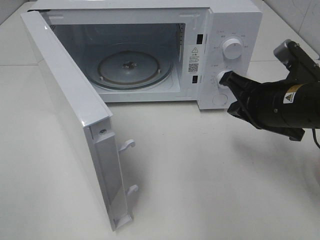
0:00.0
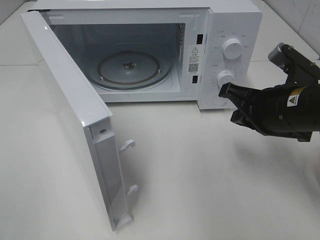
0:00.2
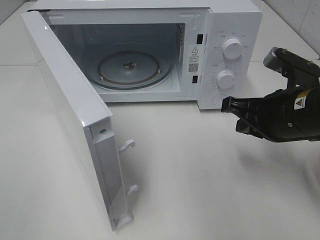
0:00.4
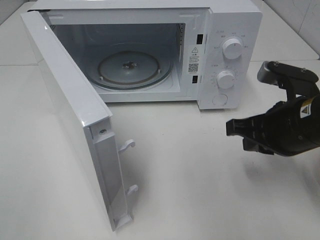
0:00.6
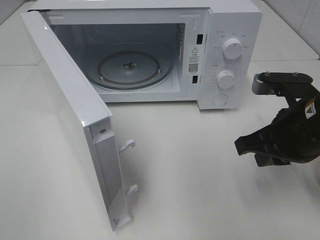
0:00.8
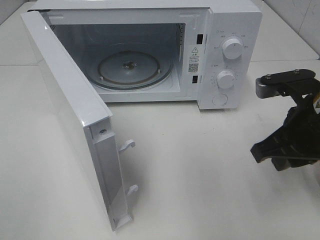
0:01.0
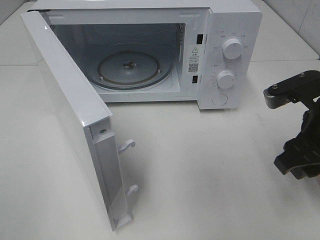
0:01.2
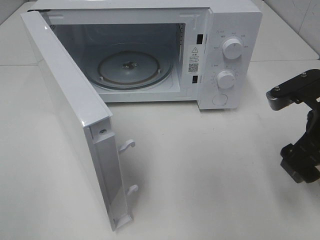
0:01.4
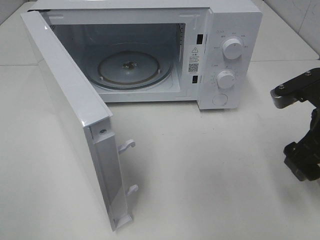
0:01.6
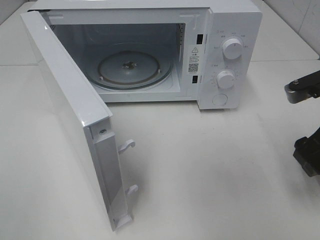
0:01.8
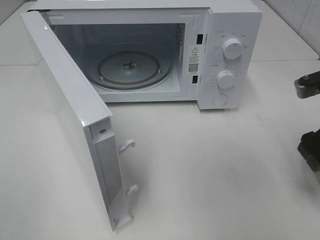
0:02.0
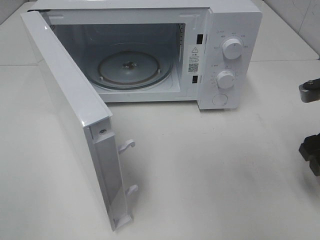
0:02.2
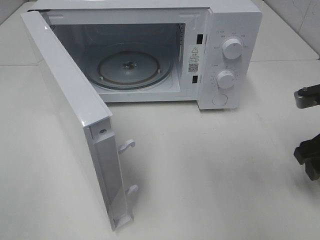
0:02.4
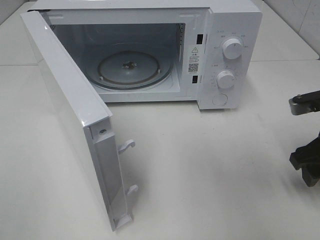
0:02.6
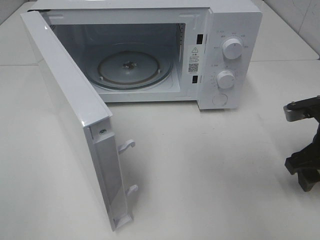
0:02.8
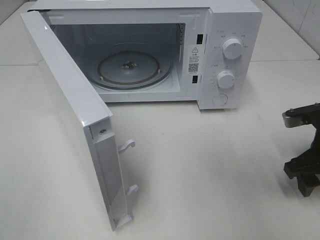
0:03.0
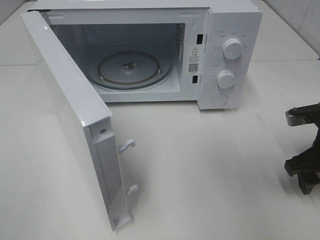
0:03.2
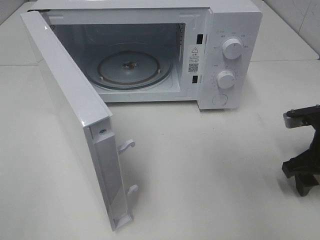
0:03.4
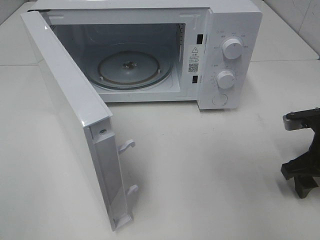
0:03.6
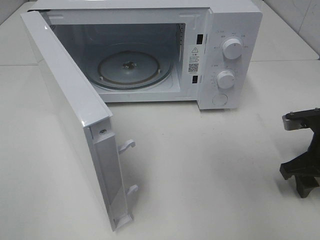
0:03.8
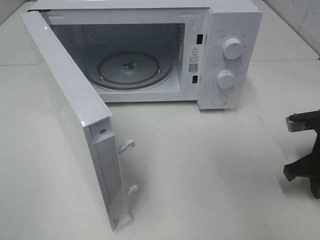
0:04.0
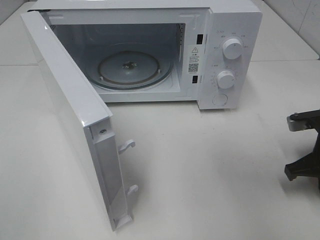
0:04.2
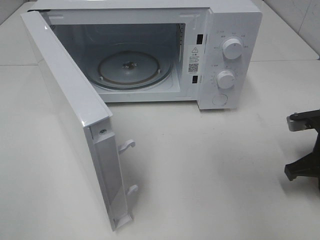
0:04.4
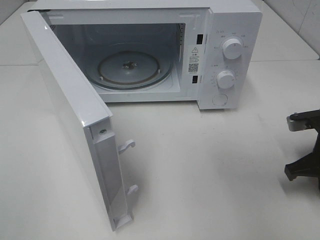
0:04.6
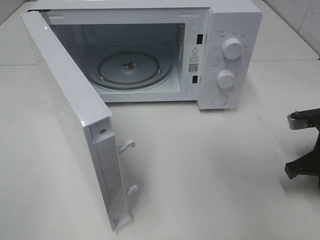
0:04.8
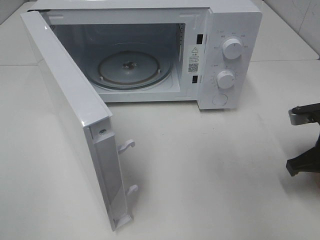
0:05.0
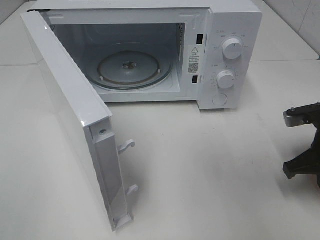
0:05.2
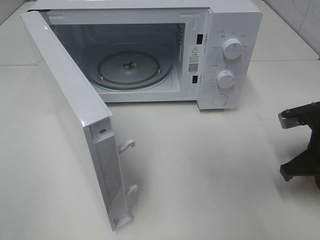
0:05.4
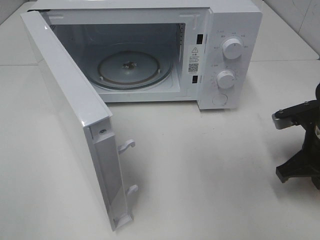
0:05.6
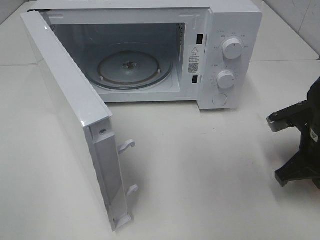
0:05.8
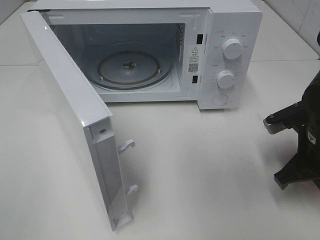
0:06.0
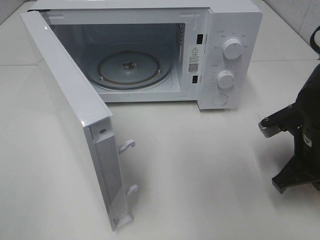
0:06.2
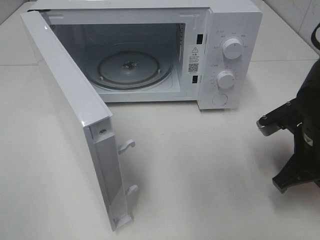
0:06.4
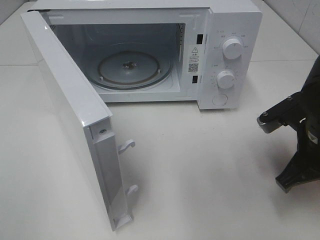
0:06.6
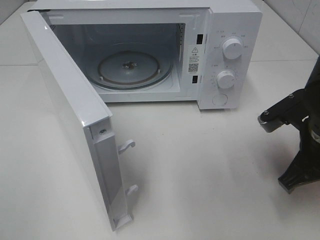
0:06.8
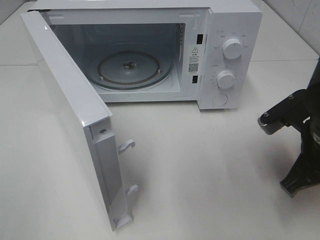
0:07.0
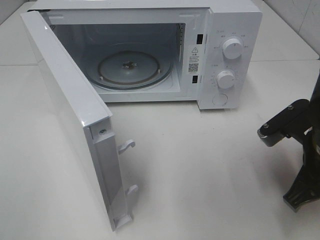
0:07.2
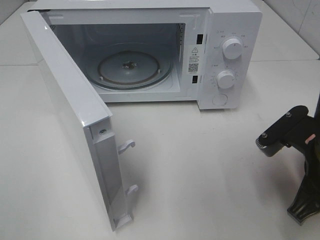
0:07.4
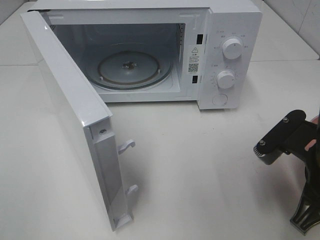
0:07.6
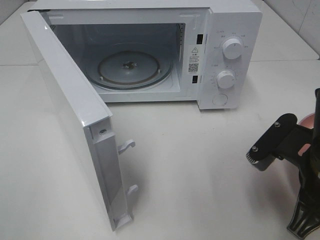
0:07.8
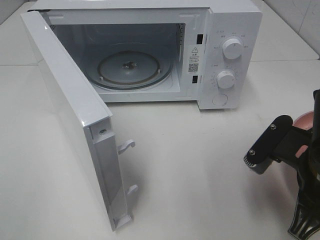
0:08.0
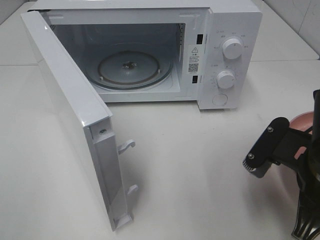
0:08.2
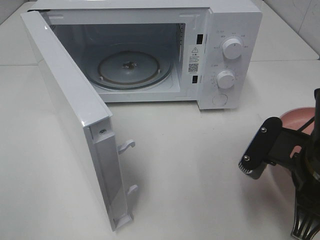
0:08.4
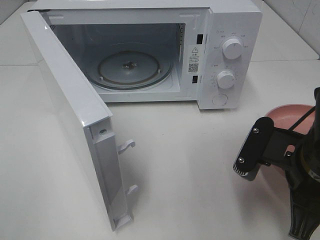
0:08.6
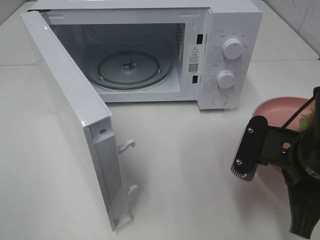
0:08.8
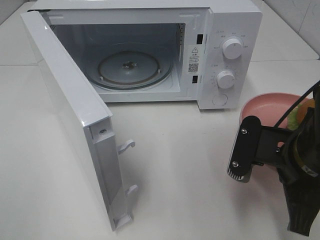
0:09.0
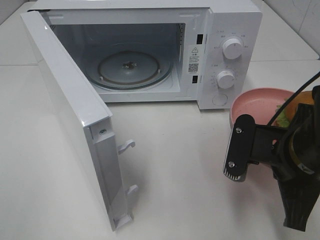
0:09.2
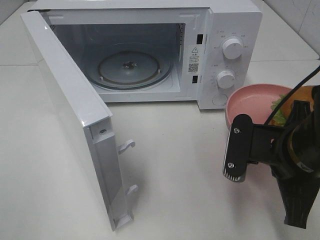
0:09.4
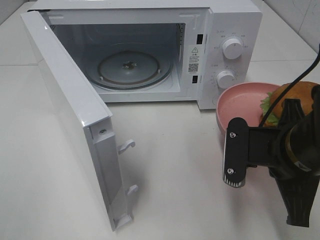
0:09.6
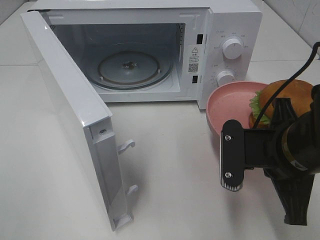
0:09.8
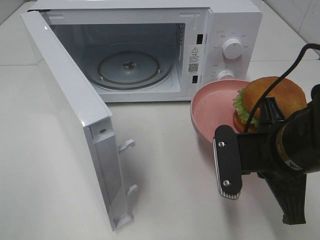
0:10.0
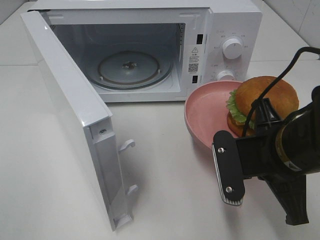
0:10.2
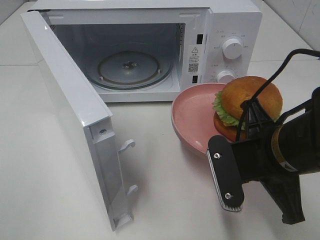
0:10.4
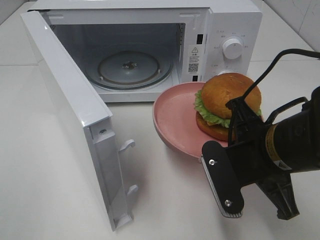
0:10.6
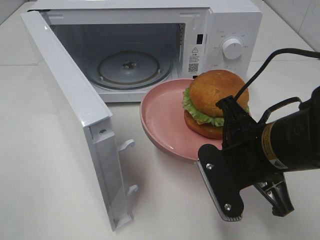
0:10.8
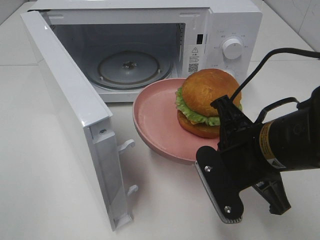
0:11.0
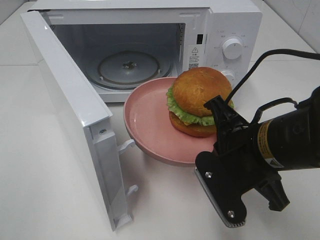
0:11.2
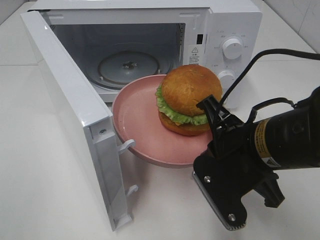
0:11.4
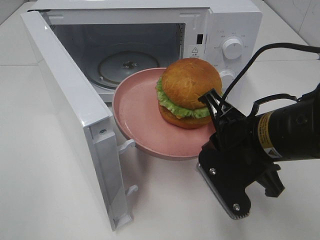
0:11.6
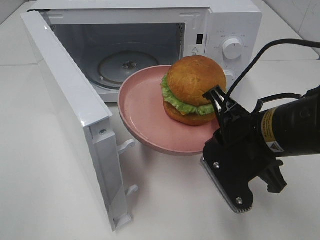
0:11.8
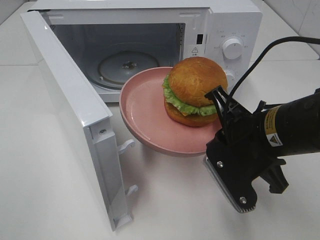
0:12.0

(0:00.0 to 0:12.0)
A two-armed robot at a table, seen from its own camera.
Task of the whole recording: Heat the burger.
Step, 0:00.0 - 0:05.6: Right hand: grab the plate with the hamburger.
0:00.0 - 0:01.6: The right gripper moves about 5 cm, and opens up.
0:01.6 - 0:03.0: The right gripper moves downward, some 10 cm.
0:03.0 - 0:04.4: The right gripper closes its fingers.
0:04.4 - 0:06.0: The right gripper shifts by about 5 cm.
0:06.0 - 0:07.6: The right gripper shifts some 5 cm backward.

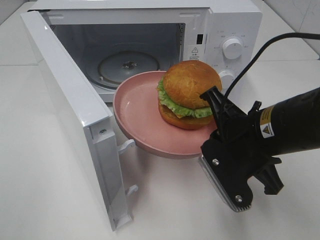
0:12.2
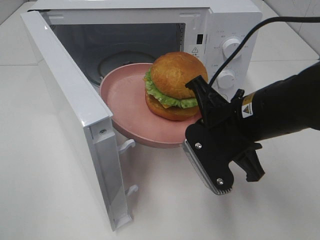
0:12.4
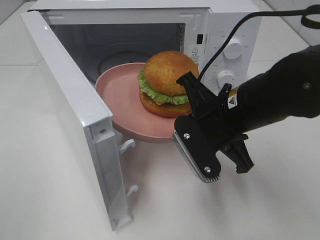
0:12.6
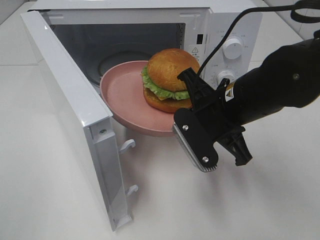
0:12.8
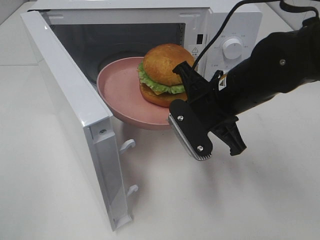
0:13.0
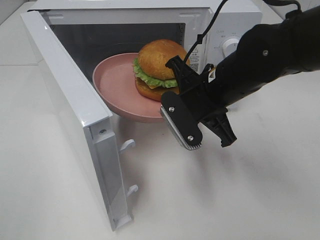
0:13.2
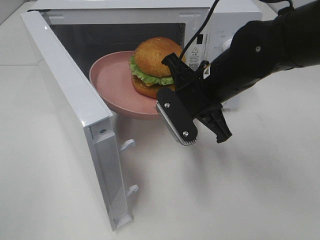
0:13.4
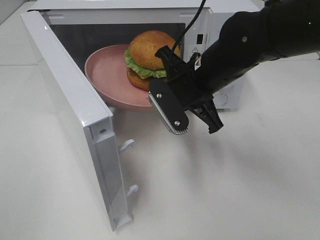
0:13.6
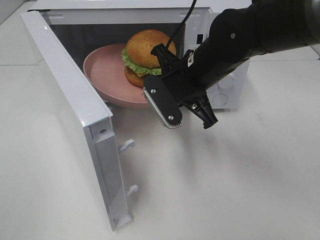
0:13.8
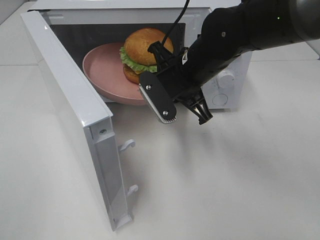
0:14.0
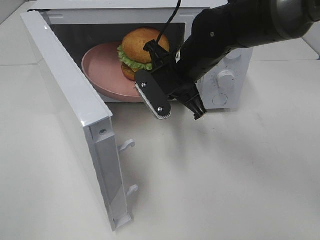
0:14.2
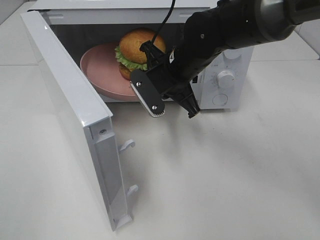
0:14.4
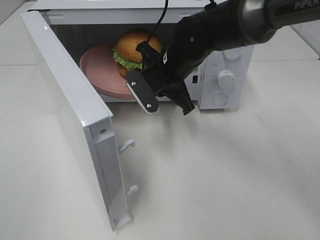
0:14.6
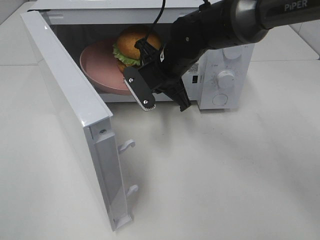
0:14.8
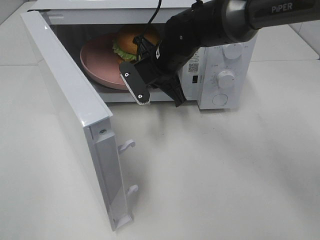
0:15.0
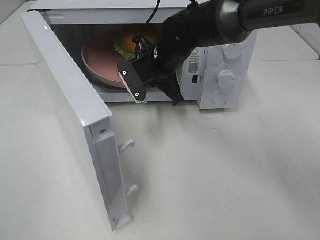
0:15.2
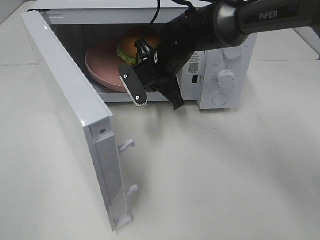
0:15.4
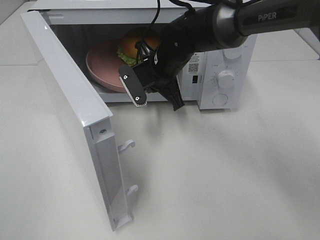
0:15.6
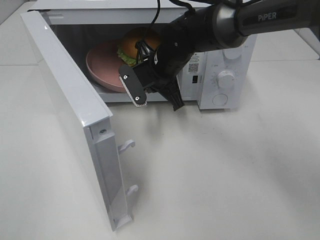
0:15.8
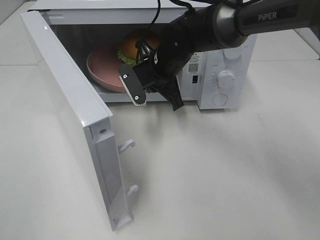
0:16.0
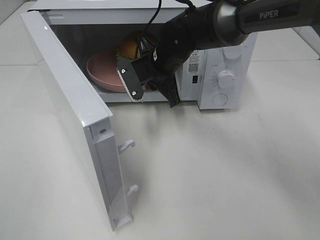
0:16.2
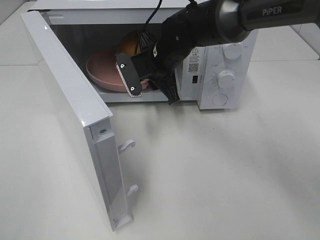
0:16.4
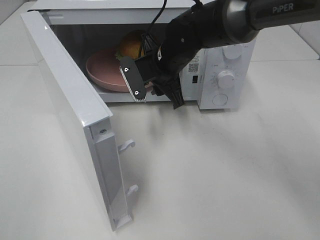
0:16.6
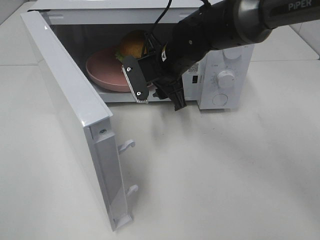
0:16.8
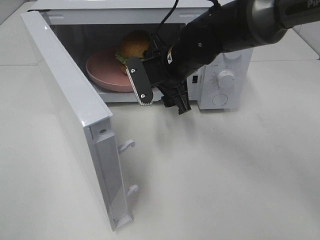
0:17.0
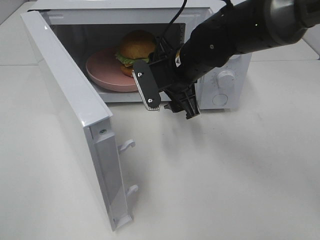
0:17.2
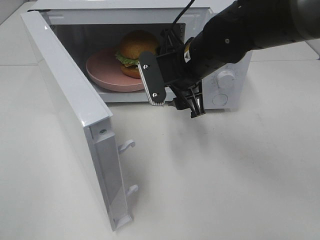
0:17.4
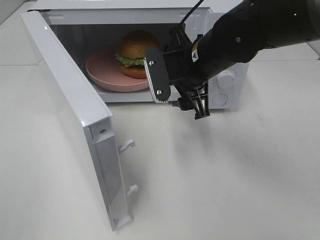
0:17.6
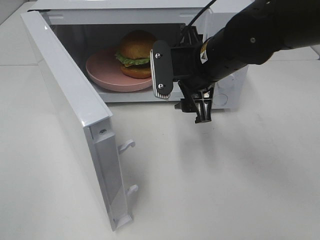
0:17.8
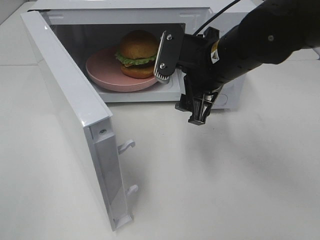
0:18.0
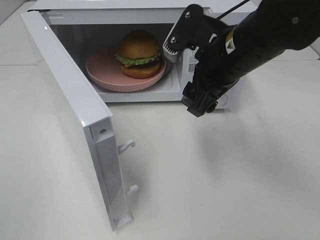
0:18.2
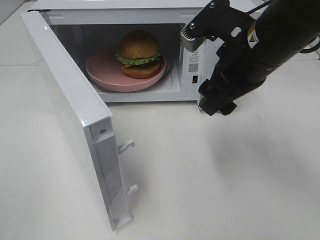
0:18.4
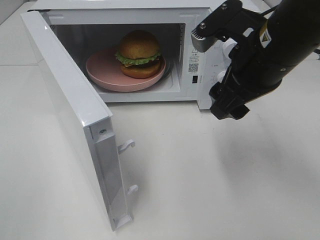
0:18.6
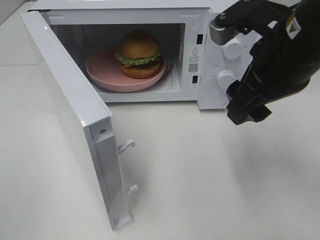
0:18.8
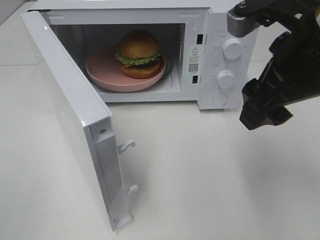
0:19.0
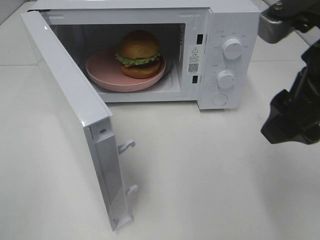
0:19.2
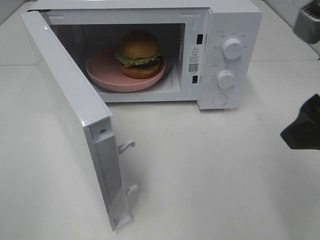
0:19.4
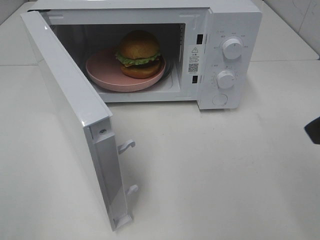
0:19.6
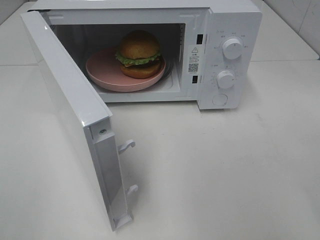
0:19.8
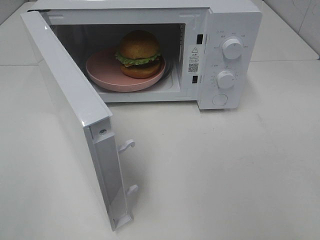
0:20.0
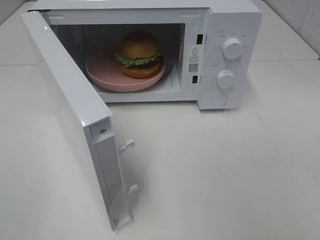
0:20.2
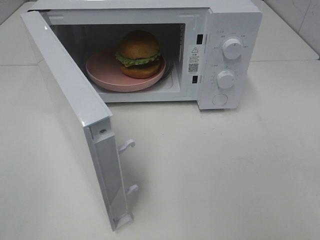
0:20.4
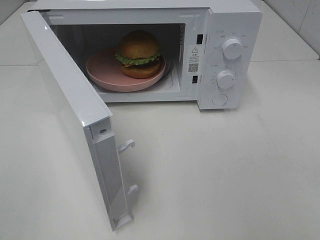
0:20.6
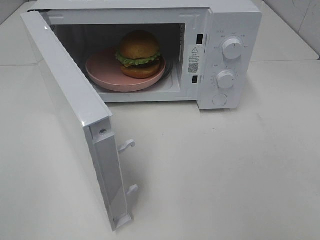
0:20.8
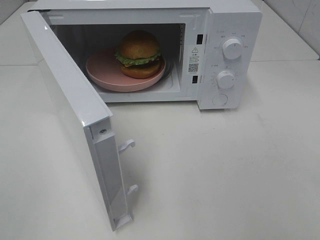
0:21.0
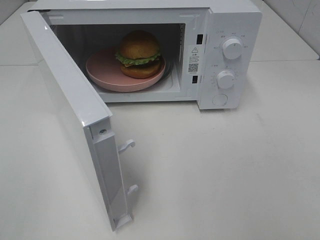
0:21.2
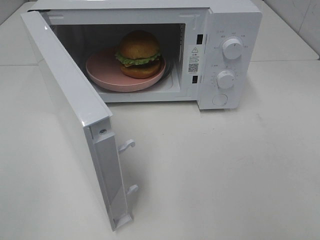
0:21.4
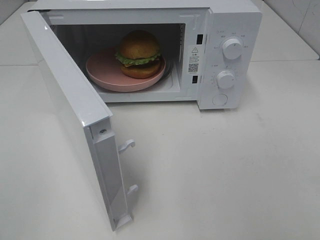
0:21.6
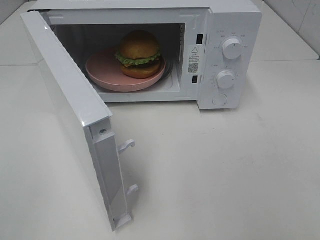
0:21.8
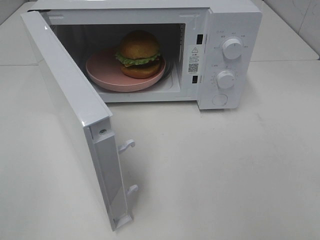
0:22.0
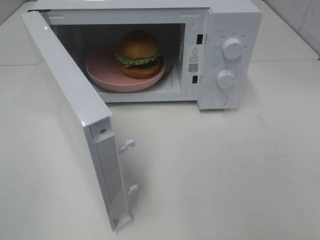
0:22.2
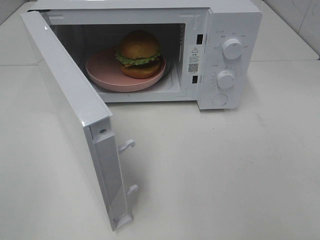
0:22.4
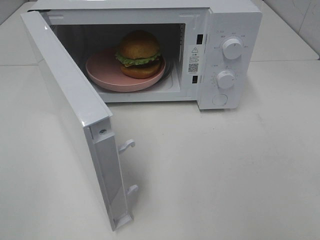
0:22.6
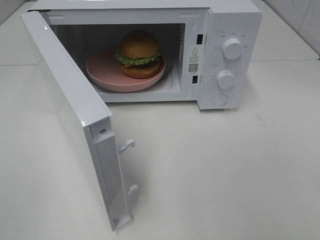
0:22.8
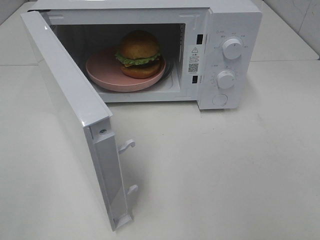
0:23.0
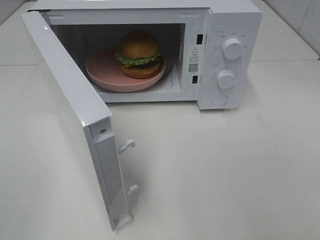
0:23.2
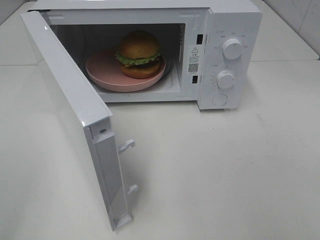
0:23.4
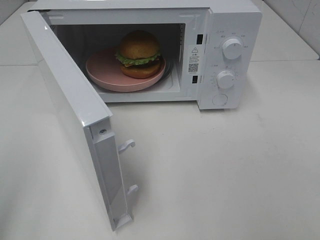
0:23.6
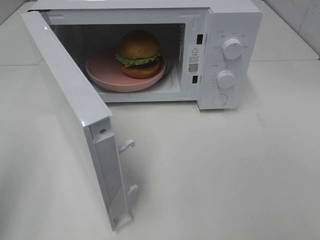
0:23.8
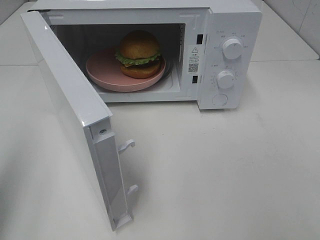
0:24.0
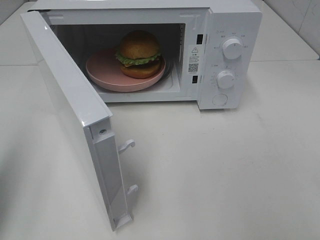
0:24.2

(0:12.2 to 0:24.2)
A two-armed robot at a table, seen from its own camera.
Task of the whole recording: Heat the burger.
Step, 0:12.2 - 0:16.0: Right hand: place the plate in the microwave.
0:12.2 - 0:13.8: The right gripper is displaced forward and to the left by roughly 15 cm.
0:13.8 - 0:15.2: The right gripper is displaced forward by some 10 cm.
0:15.2 - 0:16.6: The right gripper opens up.
0:16.6 - 0:18.2: The right gripper moves backward, to the right and upward, roughly 15 cm.
0:18.2 - 0:19.8: The right gripper heads backward, to the right and upward, covering roughly 25 cm.
0:21.2 - 0:22.6: Both grippers stay about where they are.
0:22.6 - 0:24.2: The left gripper travels forward by some 15 cm, and closes up.
